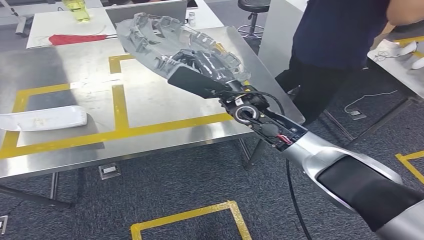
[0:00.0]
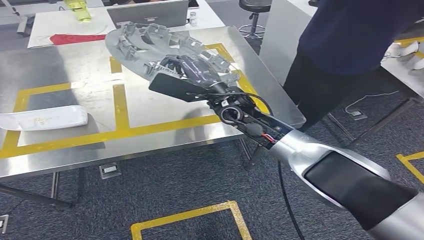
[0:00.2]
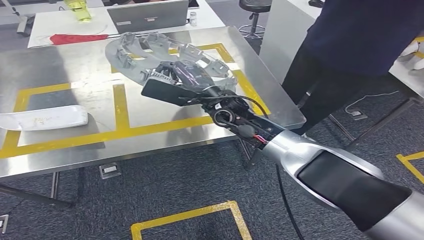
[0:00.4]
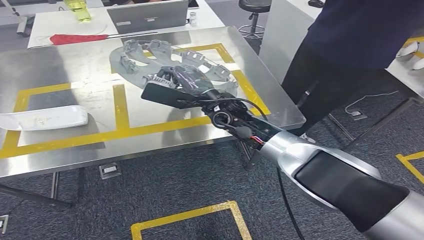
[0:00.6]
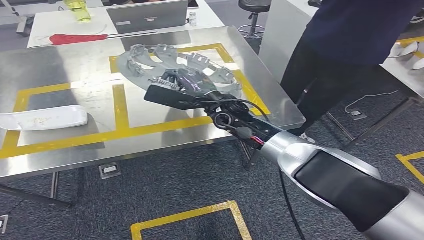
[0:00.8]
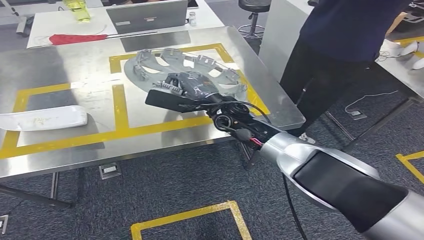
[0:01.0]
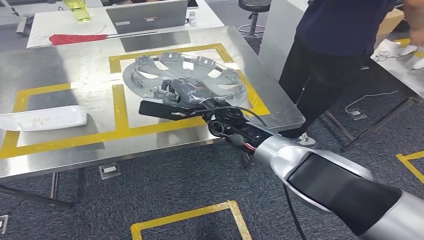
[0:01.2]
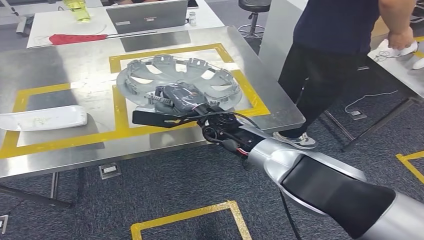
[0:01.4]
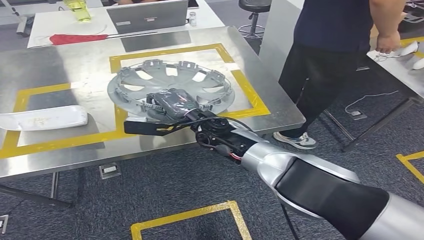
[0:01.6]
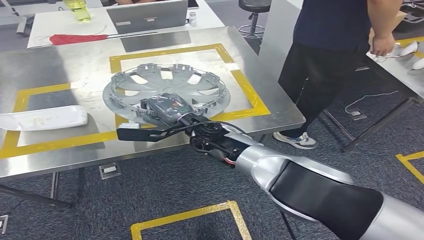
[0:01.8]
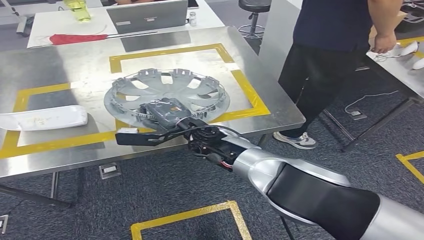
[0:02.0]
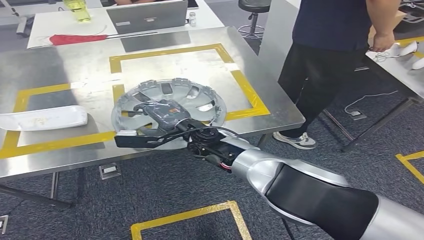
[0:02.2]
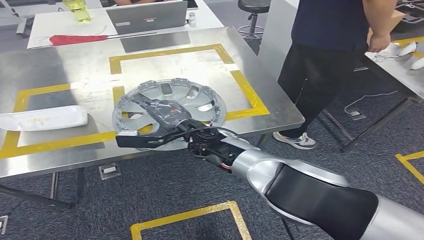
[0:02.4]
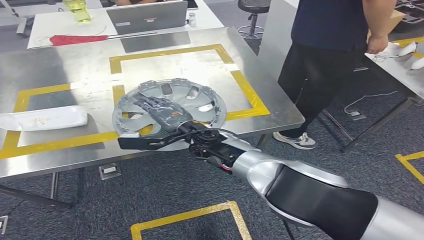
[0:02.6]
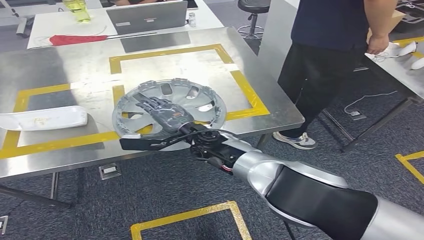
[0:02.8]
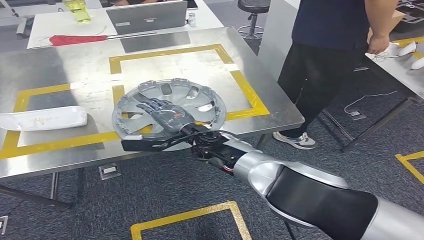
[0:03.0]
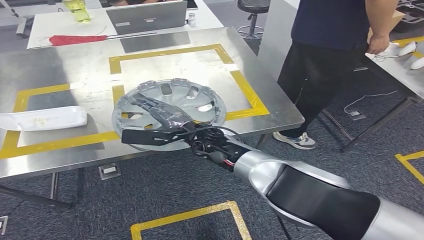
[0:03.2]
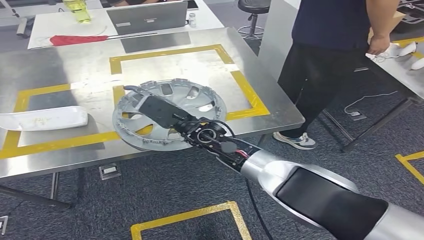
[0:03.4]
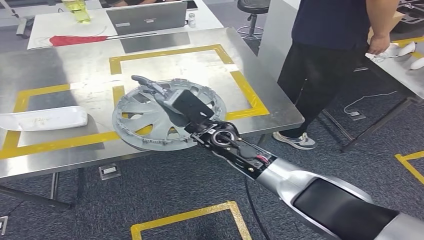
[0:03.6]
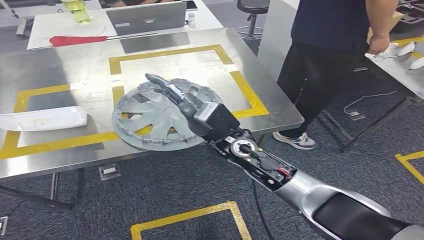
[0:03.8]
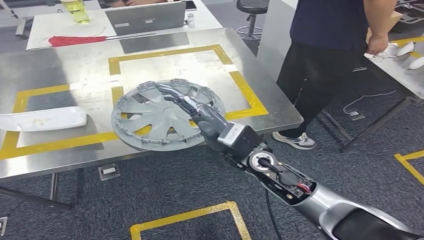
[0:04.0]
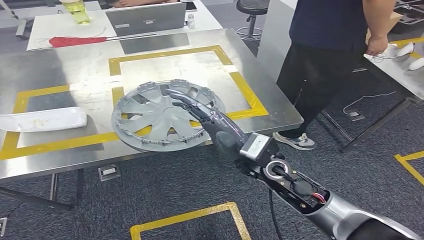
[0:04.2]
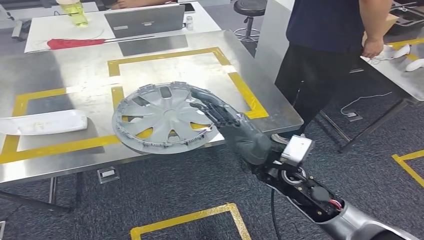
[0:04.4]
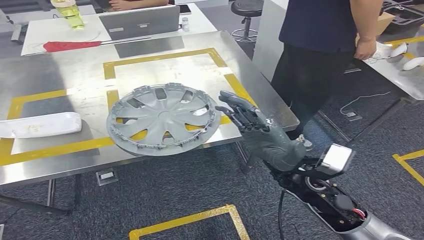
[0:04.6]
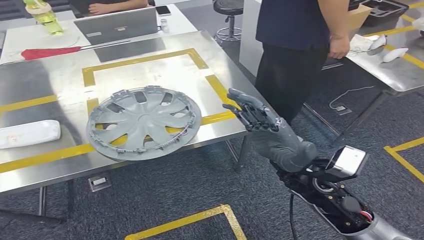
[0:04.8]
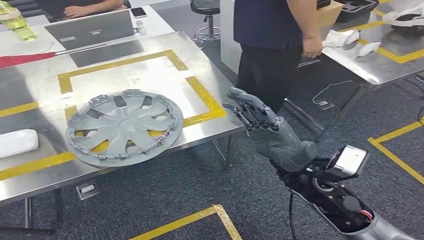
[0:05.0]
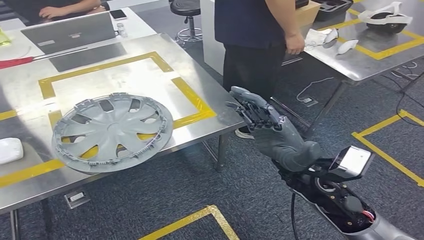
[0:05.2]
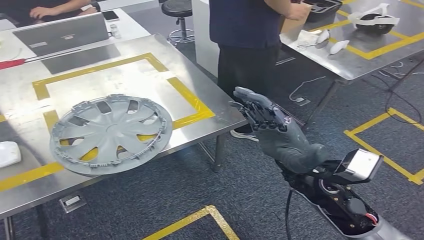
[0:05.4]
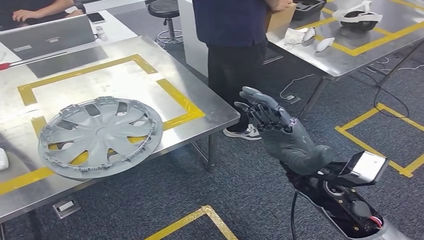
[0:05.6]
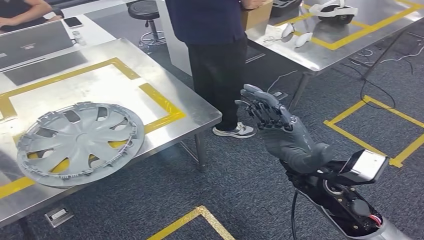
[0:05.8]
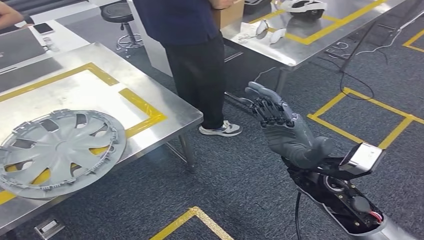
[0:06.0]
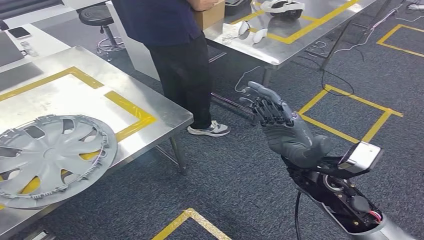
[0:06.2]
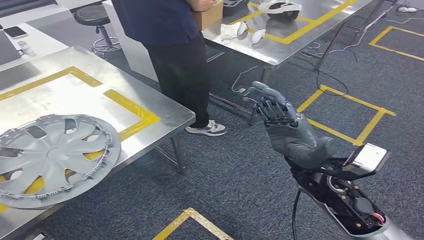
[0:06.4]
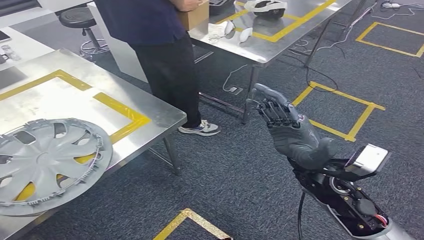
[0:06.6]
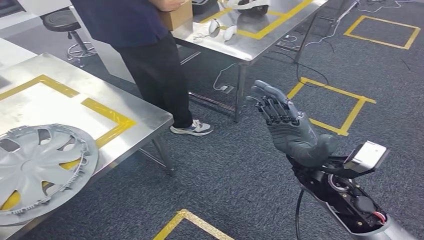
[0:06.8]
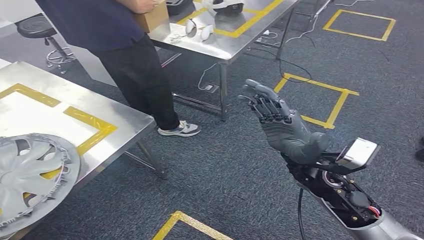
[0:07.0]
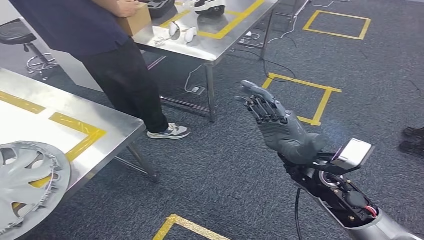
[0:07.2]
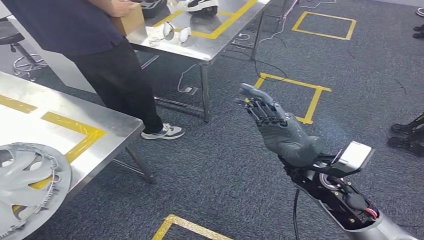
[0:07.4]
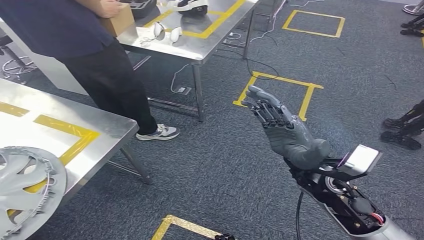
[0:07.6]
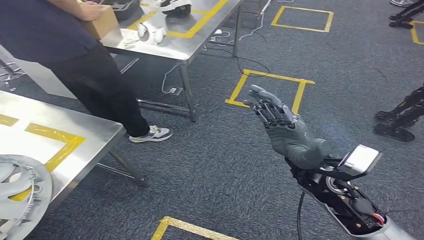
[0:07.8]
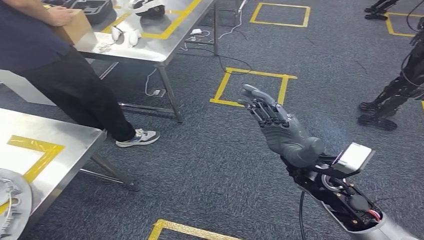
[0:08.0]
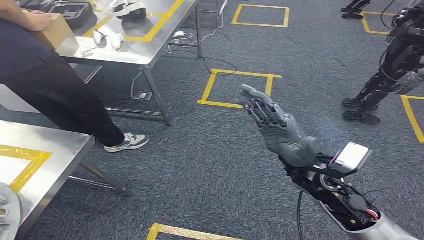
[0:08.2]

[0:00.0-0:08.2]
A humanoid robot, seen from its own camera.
Step, 0:00.0 to 0:05.8: Insert the small parts into the corresponding holes on the workbench.
Step, 0:06.0 to 0:08.2: Move to the initial position at the workbench.
0:01.6 to 0:03.2: The hands make only small movements.
